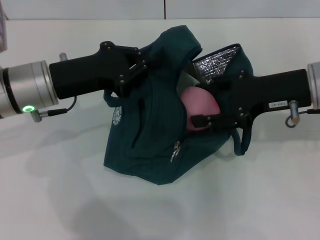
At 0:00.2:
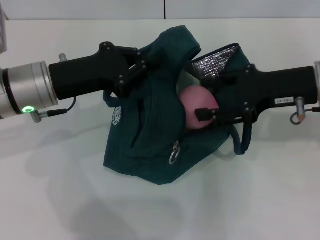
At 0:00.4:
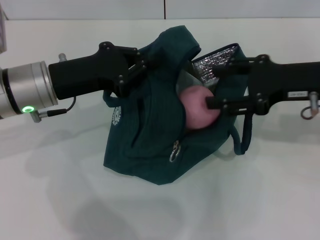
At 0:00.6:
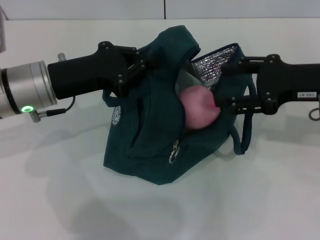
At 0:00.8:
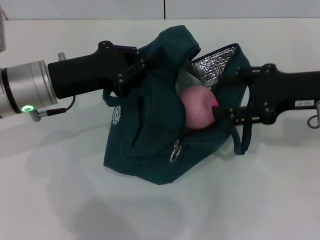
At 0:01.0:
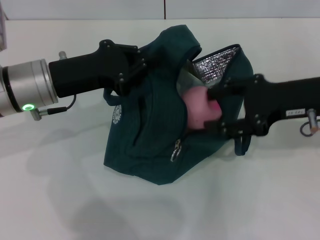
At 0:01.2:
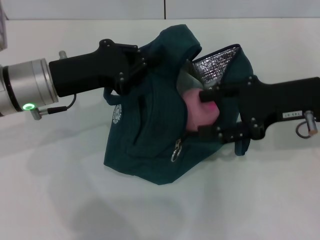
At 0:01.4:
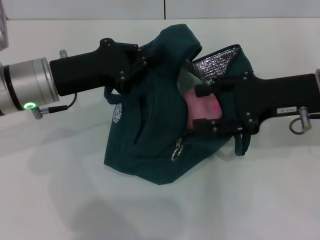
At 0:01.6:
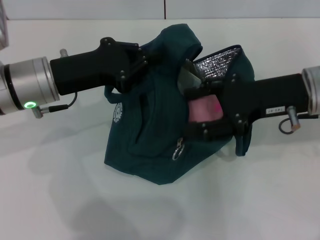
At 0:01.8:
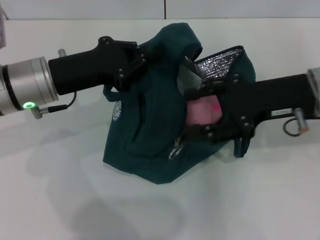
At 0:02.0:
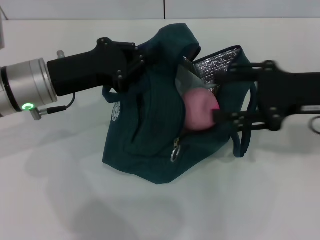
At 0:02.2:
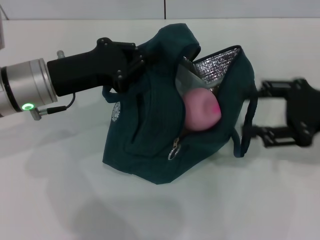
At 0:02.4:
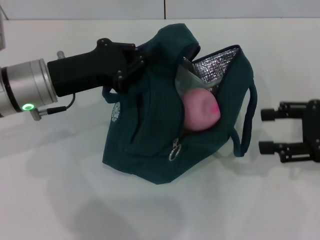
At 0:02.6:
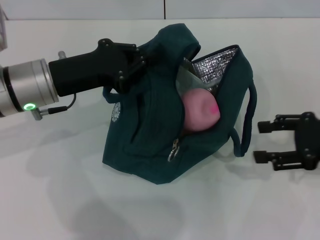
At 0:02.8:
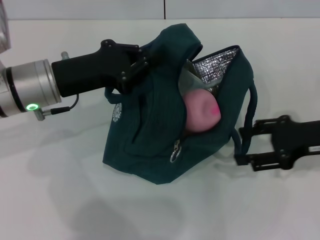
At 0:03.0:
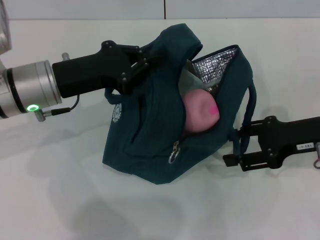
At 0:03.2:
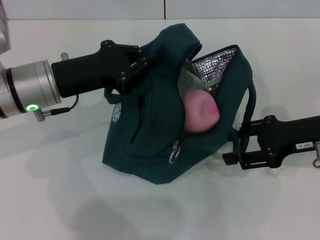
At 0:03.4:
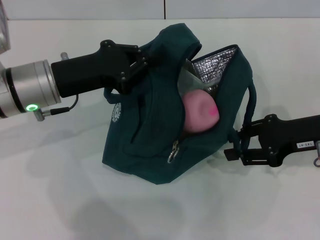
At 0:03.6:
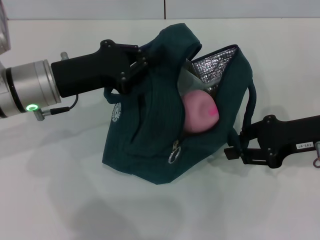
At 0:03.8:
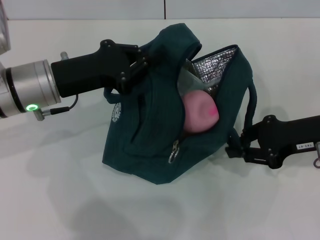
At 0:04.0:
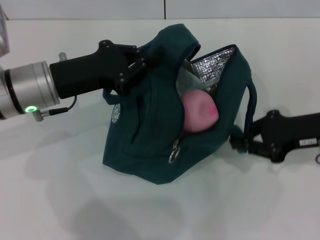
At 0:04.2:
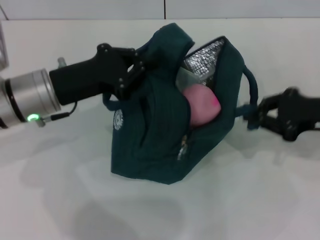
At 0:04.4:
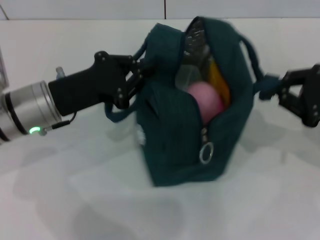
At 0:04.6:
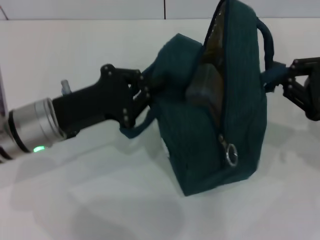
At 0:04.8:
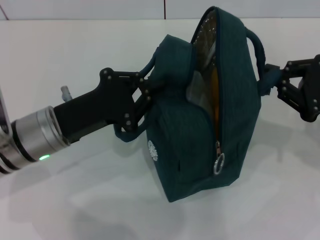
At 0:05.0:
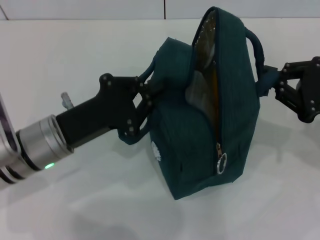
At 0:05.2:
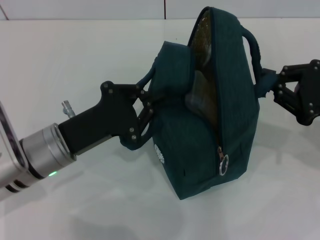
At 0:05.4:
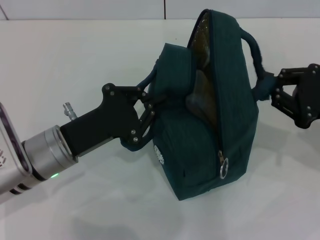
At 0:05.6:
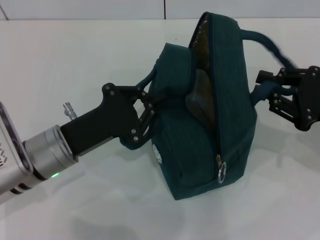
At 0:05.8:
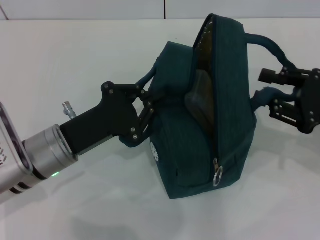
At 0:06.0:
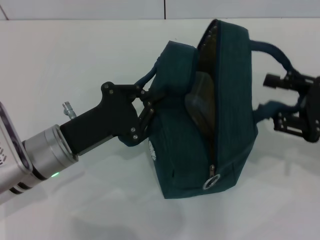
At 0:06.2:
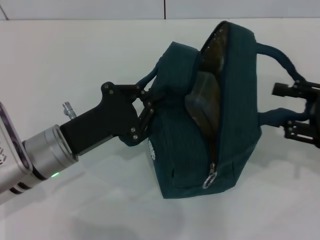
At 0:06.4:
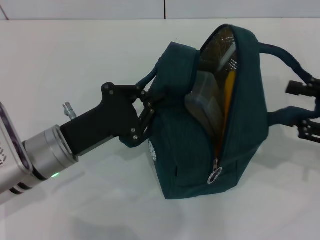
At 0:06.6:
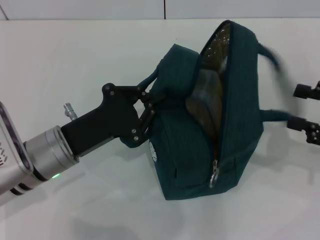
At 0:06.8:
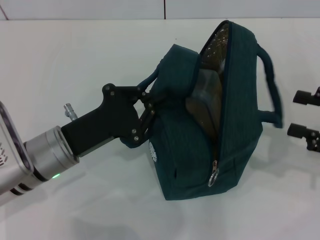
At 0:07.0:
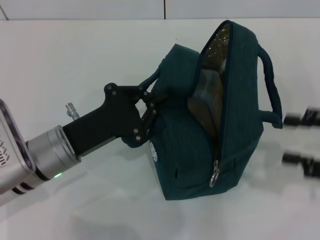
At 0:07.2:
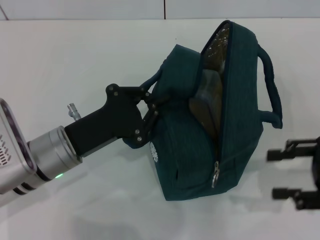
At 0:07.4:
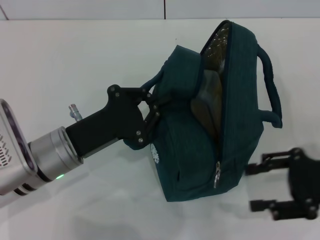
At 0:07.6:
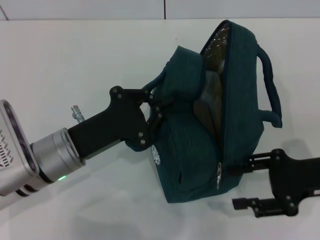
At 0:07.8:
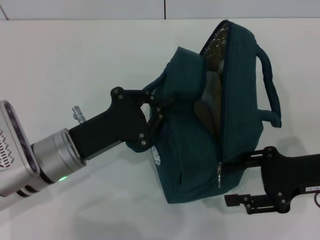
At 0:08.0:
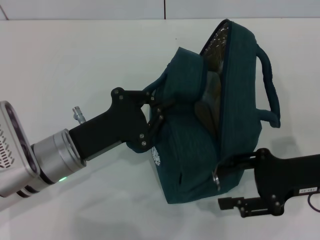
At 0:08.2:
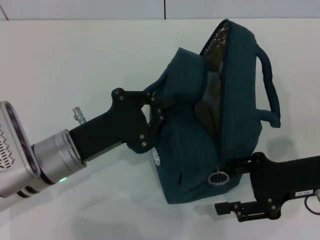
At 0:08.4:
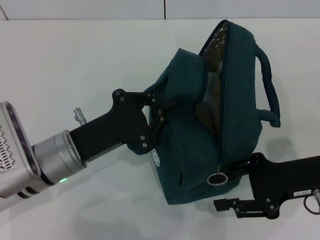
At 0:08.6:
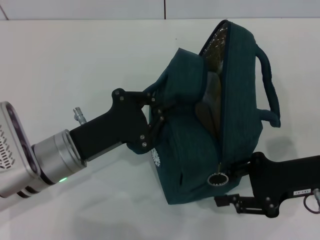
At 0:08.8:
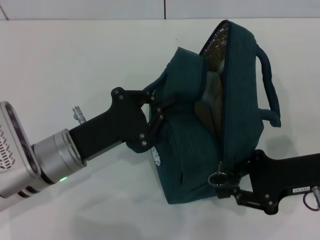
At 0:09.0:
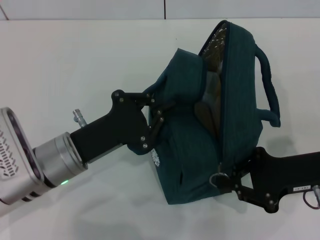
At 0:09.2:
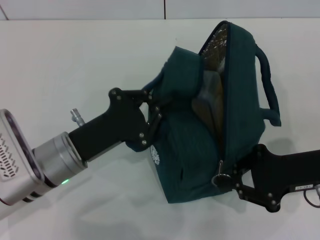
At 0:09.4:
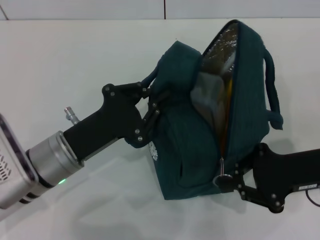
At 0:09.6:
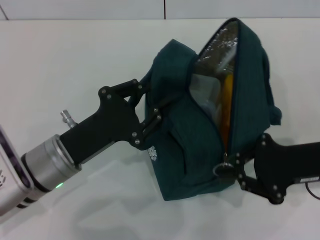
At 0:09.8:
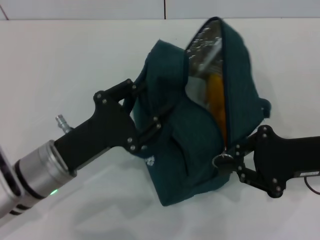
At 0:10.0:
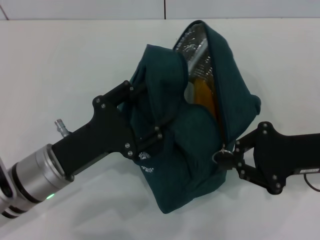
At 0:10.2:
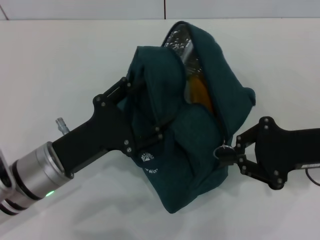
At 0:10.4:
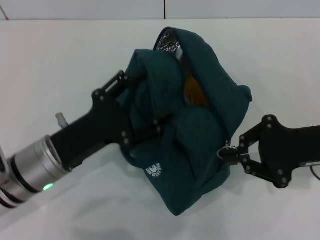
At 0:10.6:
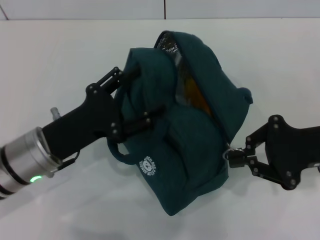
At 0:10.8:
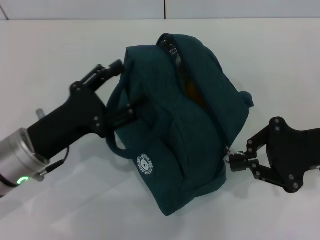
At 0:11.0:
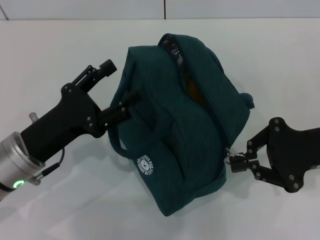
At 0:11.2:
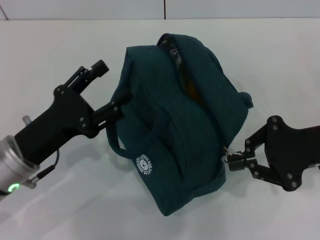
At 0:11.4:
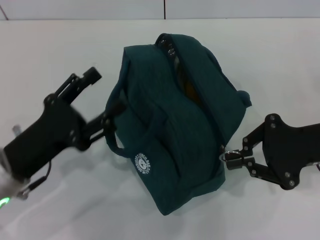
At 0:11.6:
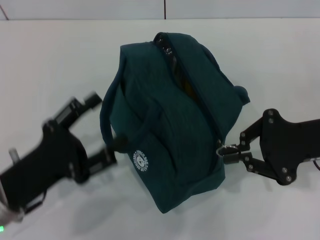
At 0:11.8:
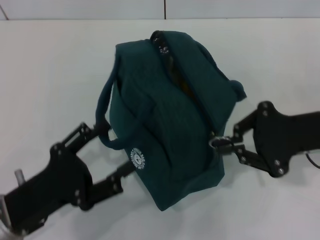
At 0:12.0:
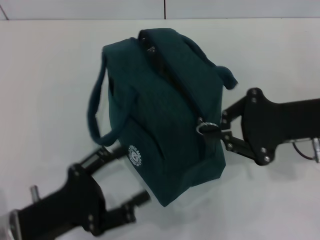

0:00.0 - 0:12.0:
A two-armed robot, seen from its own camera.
Step, 0:00.6 - 0:05.8: Hold the lunch bag with your right hand.
0:00.0 - 0:01.6: There are only small adjustments of the grippers.
0:01.6 - 0:03.0: The right gripper moves to the right, about 5 cm.
0:03.0 - 0:04.4: The right gripper moves roughly 5 cm, and closes up.
0:04.4 - 0:06.0: The left gripper shifts by approximately 5 cm.
0:07.6 - 0:09.0: The right gripper closes up.
0:09.0 - 0:10.4: The left gripper opens its fingers.
0:10.4 - 0:12.0: The left gripper moves backward, roughly 10 cm.

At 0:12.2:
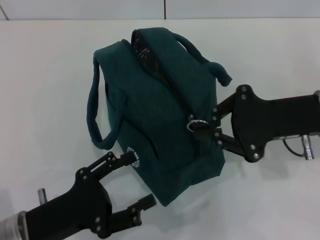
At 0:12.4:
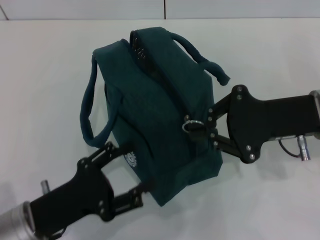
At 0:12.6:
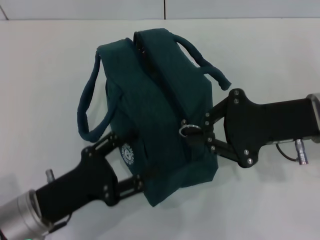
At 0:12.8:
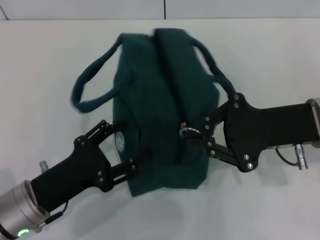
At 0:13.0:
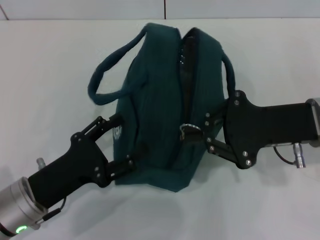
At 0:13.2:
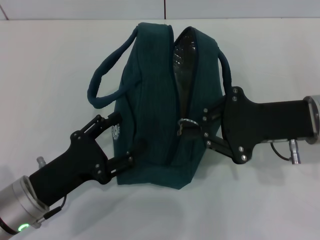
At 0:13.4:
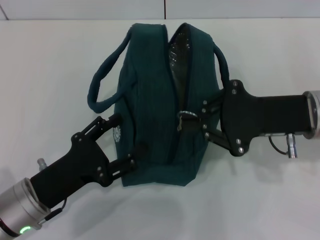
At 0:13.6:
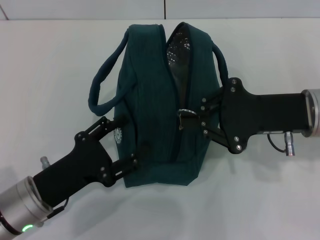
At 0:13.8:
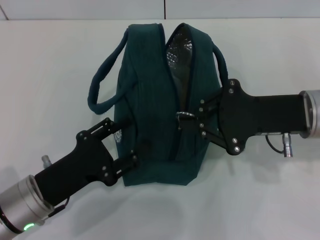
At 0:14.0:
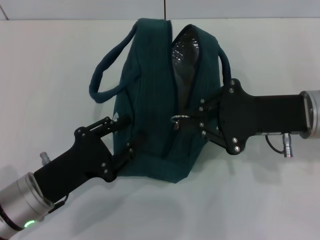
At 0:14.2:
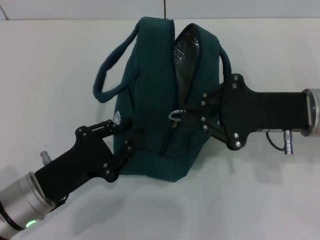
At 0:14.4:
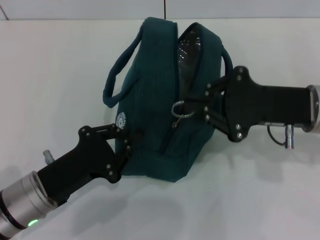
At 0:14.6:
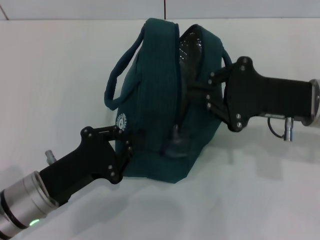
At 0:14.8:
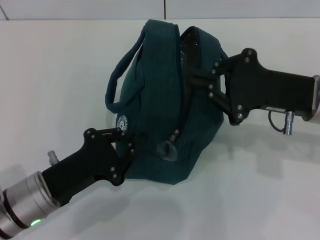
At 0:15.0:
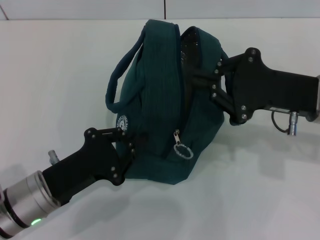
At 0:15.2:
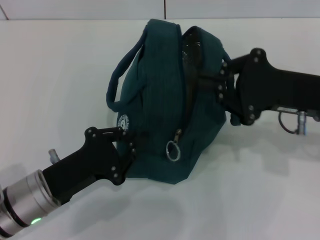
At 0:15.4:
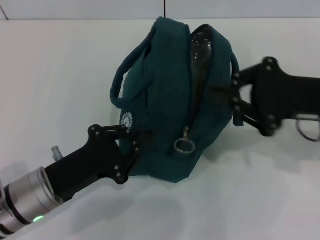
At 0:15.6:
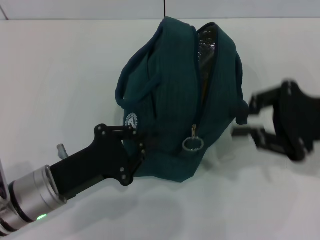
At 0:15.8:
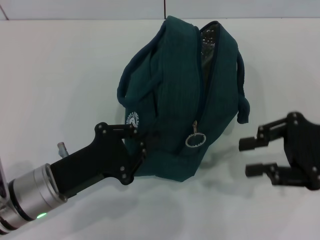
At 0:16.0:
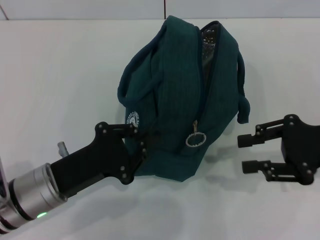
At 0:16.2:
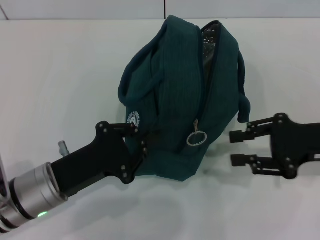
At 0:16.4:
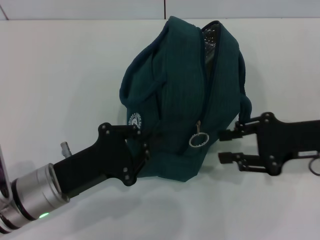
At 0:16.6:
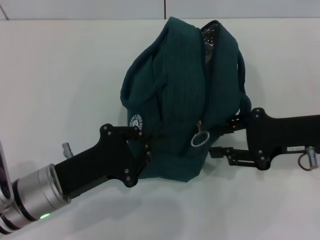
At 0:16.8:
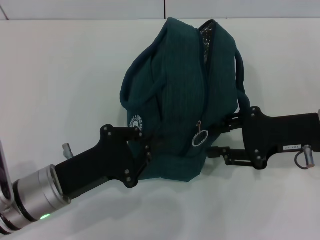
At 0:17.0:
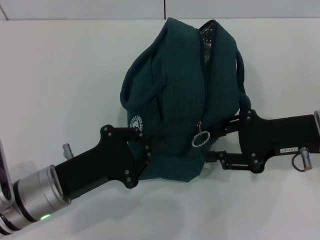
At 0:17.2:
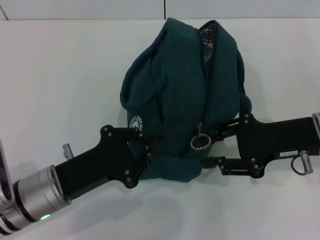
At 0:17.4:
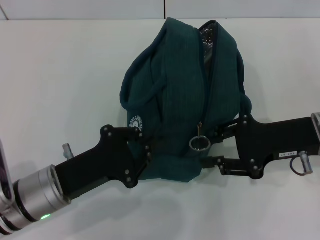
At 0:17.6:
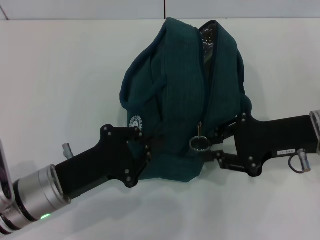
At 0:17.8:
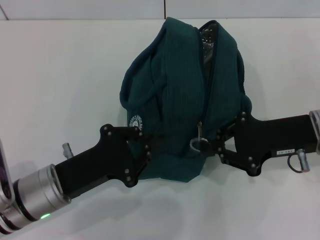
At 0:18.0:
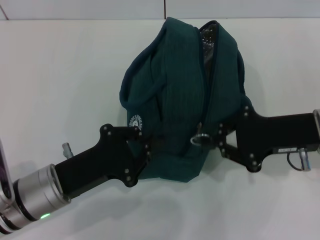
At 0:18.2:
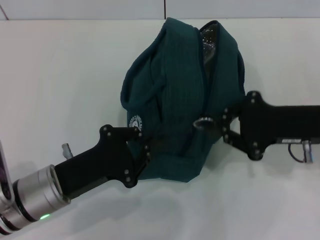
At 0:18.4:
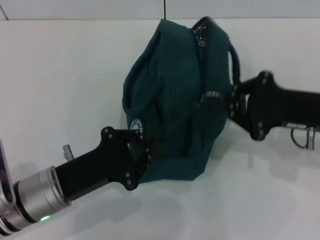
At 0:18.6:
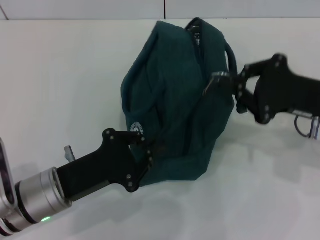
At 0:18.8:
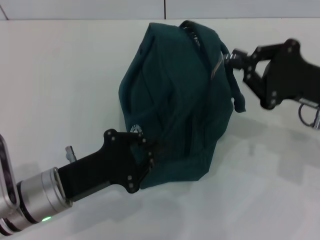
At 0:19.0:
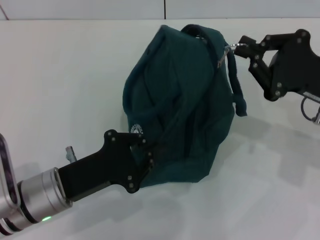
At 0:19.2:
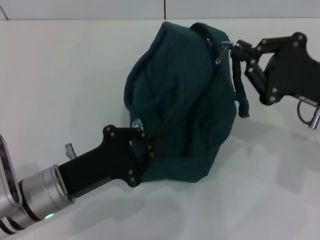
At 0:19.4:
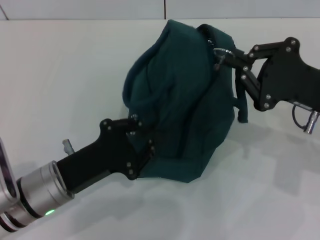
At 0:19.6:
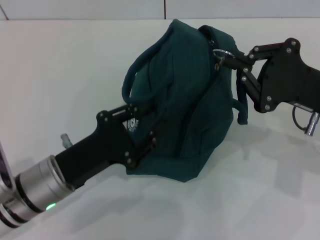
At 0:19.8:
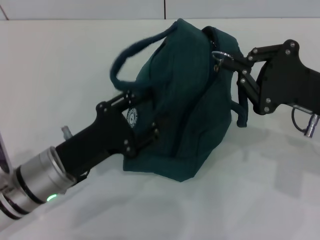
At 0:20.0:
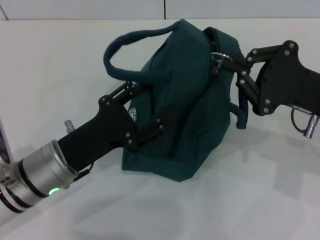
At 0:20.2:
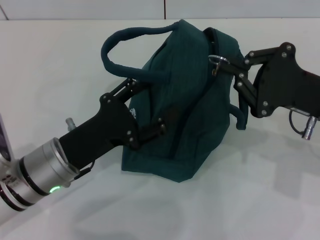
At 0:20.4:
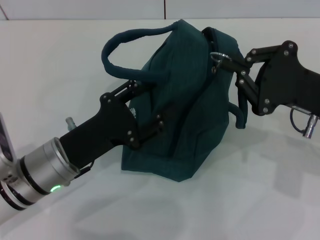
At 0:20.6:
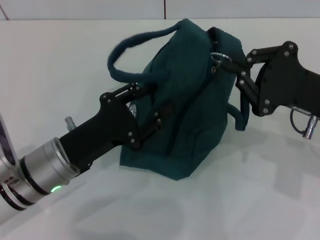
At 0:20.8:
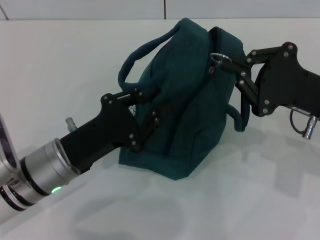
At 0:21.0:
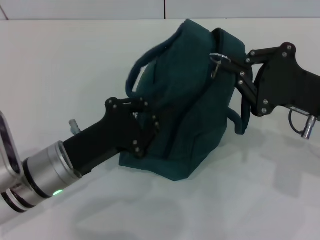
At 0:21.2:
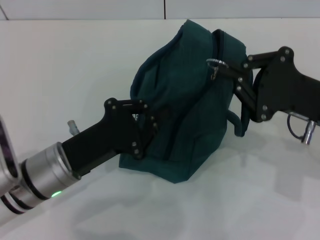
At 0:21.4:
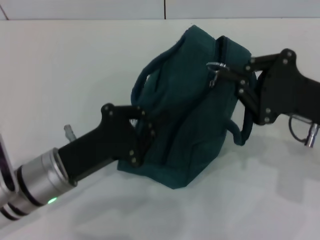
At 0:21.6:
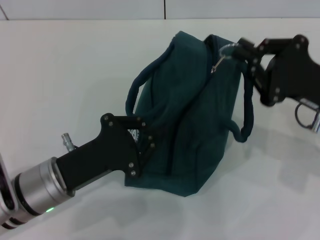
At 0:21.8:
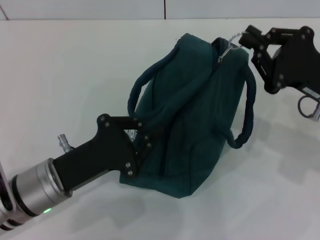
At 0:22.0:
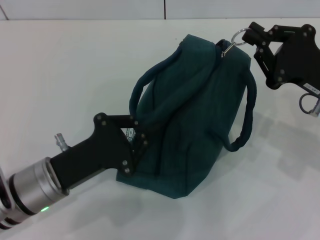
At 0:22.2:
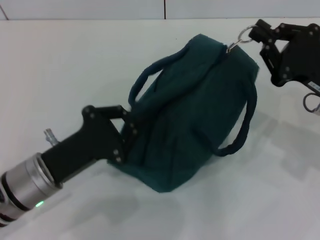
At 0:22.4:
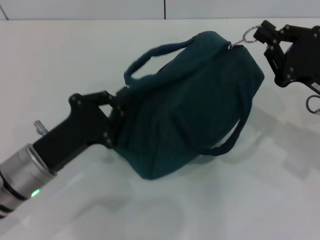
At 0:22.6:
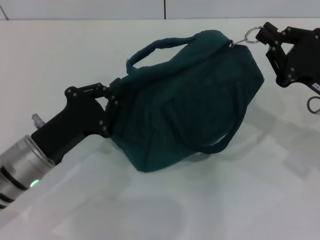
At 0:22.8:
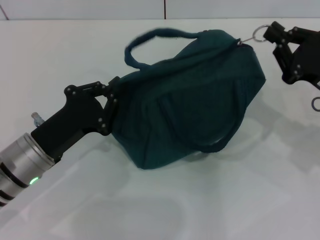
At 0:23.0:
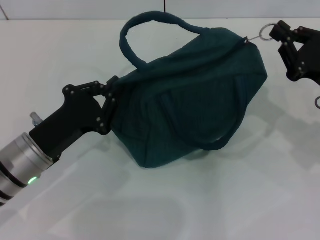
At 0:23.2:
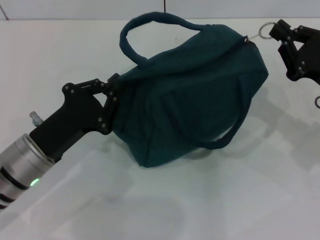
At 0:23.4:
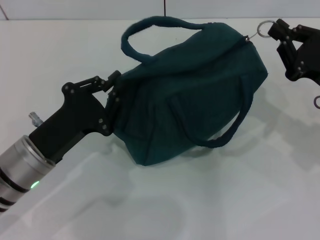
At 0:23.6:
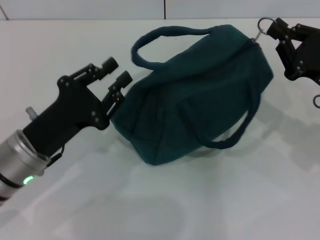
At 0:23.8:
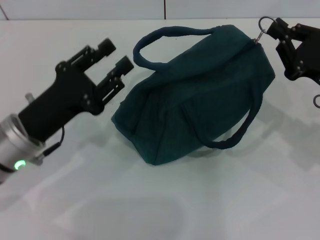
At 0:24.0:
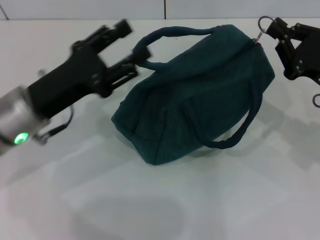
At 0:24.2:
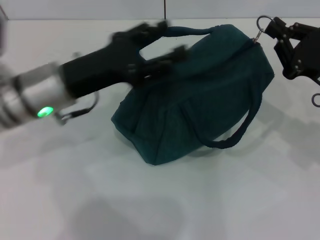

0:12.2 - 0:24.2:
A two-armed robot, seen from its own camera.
0:13.8 - 0:15.2: The left gripper closes up.
0:15.2 - 0:16.6: The right gripper opens up.
0:16.6 - 0:18.2: The right gripper closes up.
0:18.2 - 0:19.8: The left gripper opens.
0:19.8 - 0:21.2: The left gripper closes.
0:22.6 - 0:24.2: The left gripper travels upward and forward by about 10 cm, and opens up.
